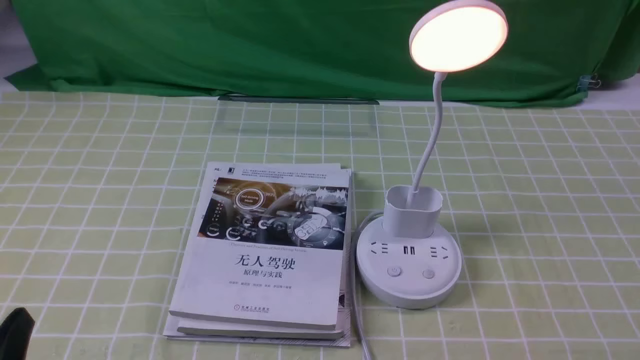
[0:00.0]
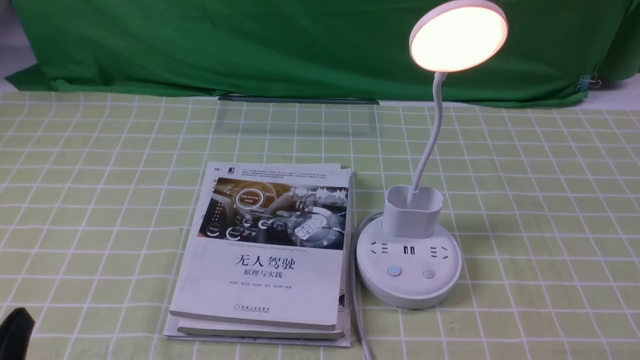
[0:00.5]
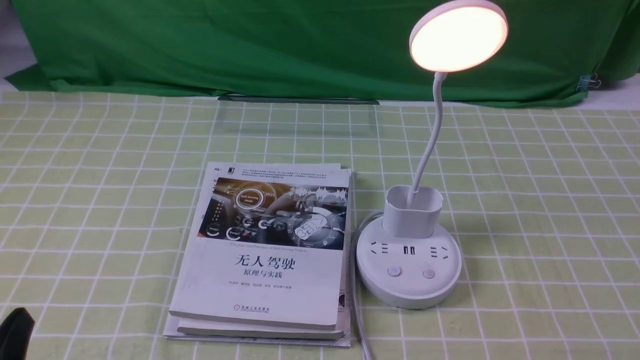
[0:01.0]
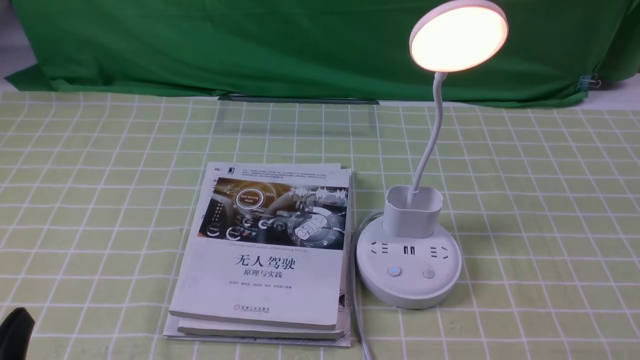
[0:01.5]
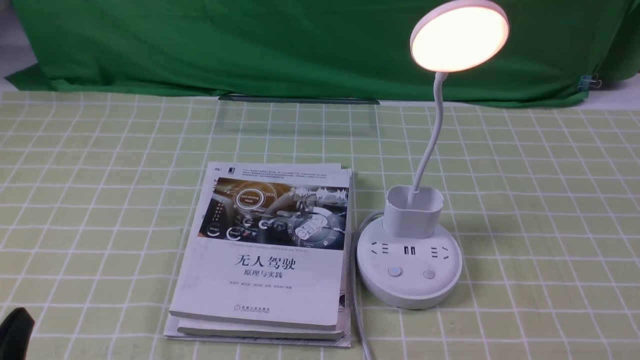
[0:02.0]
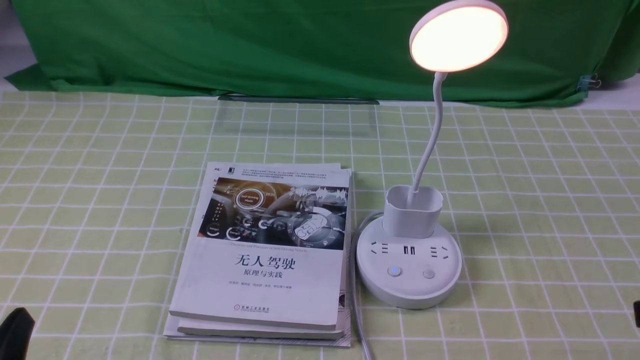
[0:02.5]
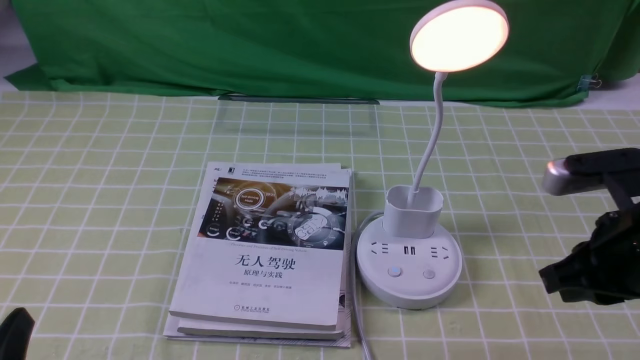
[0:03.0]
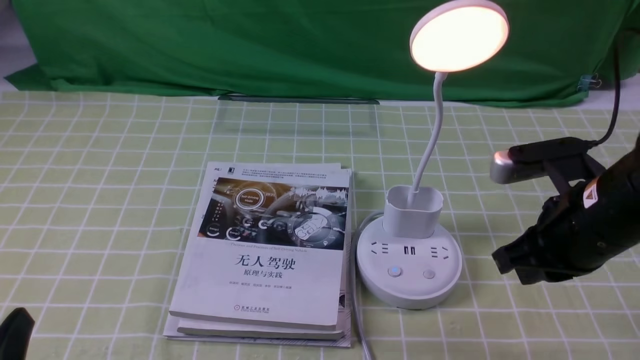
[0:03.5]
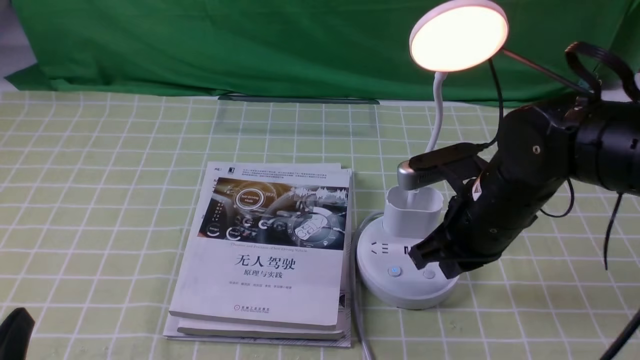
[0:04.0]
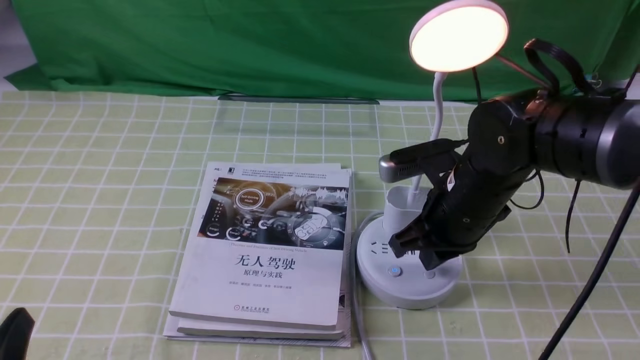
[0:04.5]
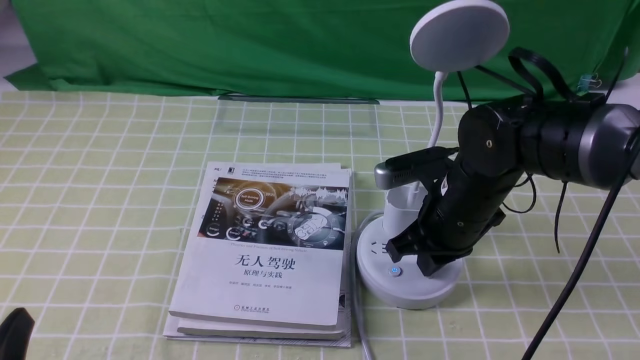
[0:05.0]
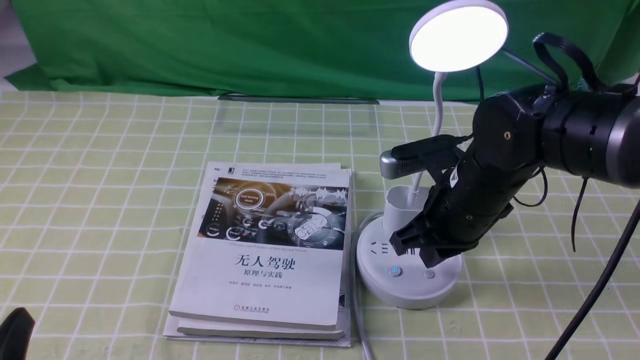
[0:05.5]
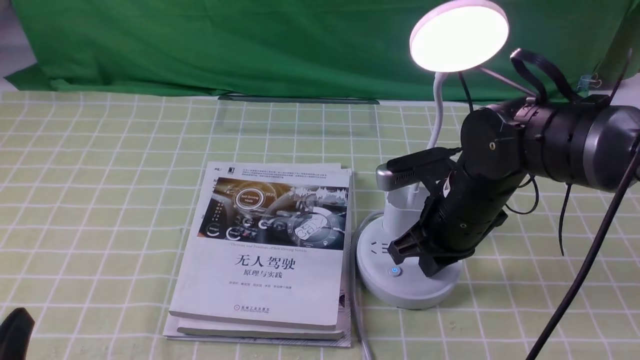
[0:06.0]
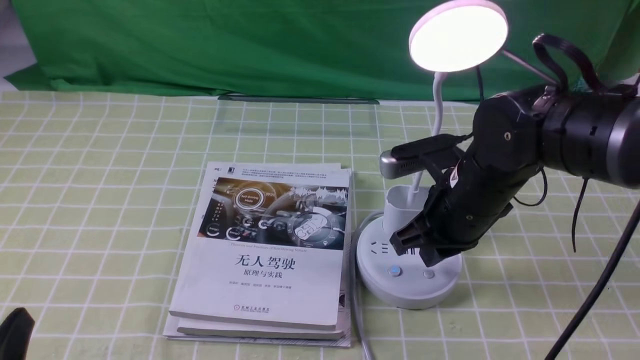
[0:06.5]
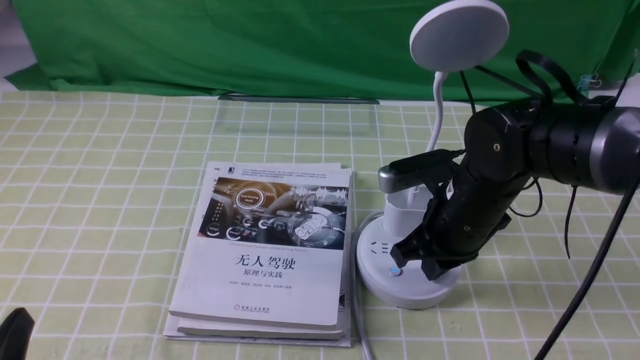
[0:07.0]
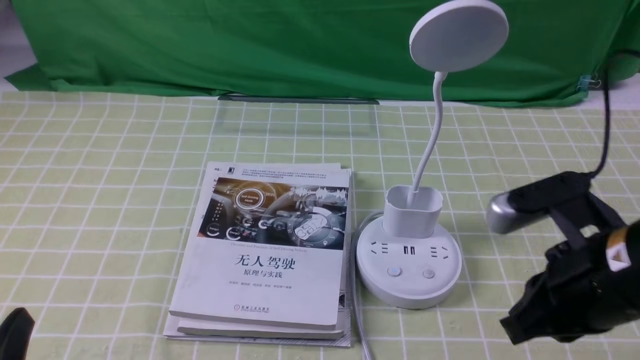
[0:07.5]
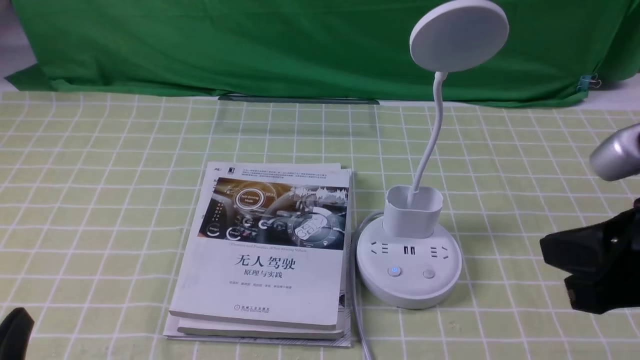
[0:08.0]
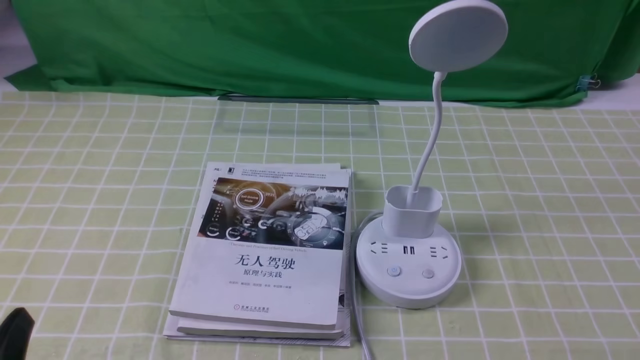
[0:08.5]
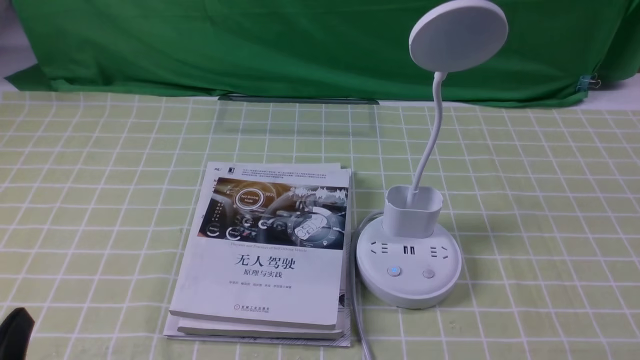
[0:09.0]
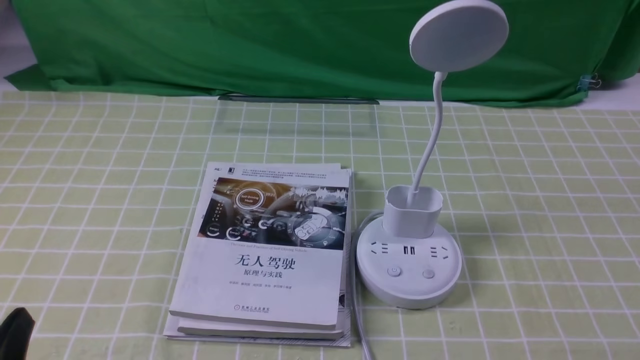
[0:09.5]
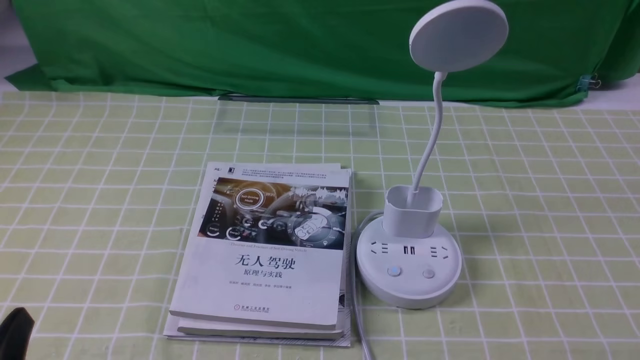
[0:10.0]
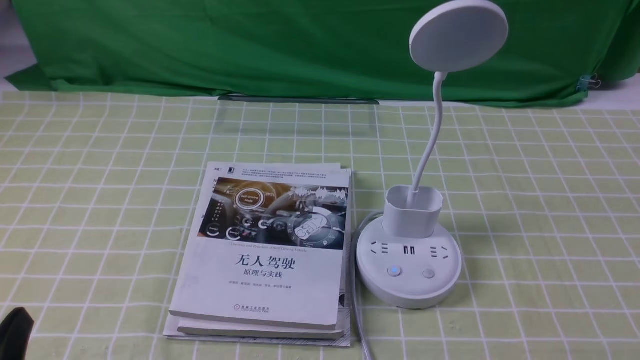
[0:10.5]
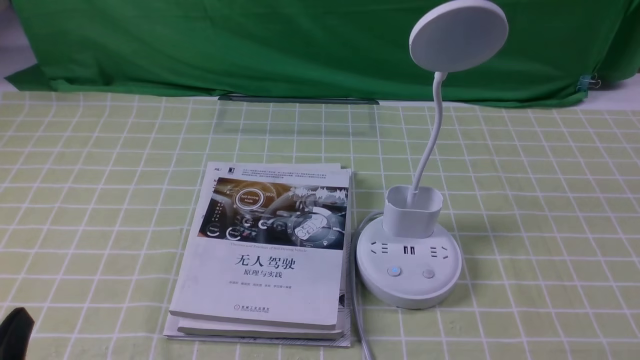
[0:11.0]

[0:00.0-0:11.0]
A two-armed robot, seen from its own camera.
Task of the whole recording: turn off the desk lamp on the green coffee tablecloth by hand.
Step, 0:00.0 to 0:07.0: use the right arm to press the button switch on the lamp holder.
0:02.0 to 0:03.5: The right gripper is displaced forward and to the left by about 25 cm, and closes up.
0:03.5 to 0:05.5: The right gripper moves to the left and forward, about 10 cm.
0:05.5 to 0:07.5: The right gripper goes approximately 15 cm backward, upward and to the right.
0:07.5 to 0:09.0: The right gripper goes approximately 20 cm backward, to the right and downward.
